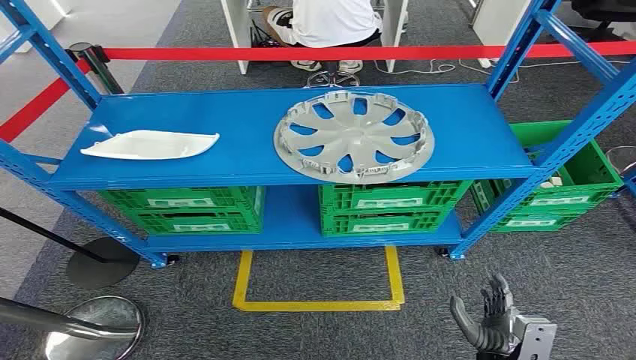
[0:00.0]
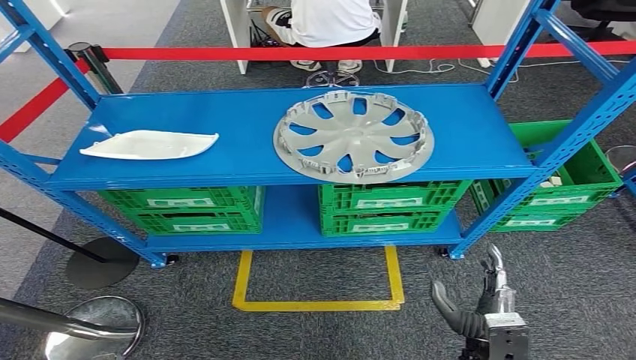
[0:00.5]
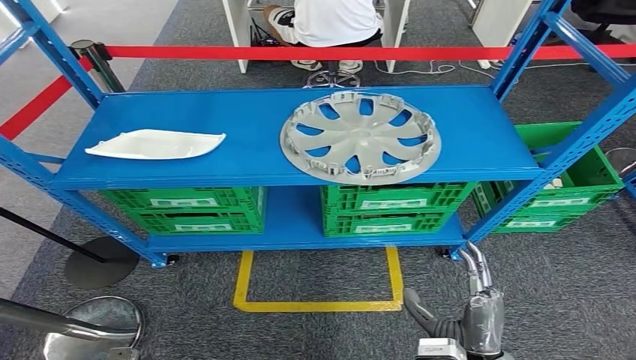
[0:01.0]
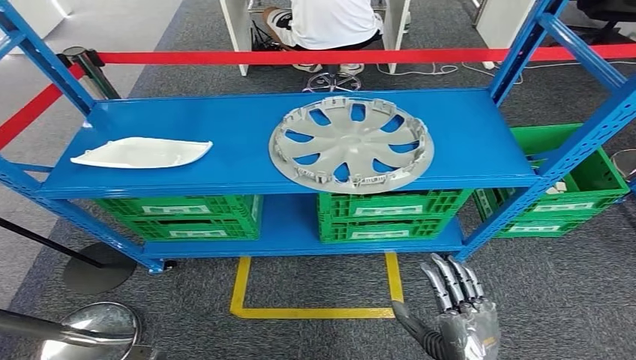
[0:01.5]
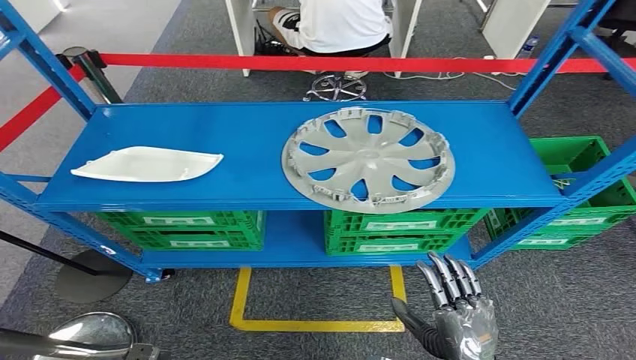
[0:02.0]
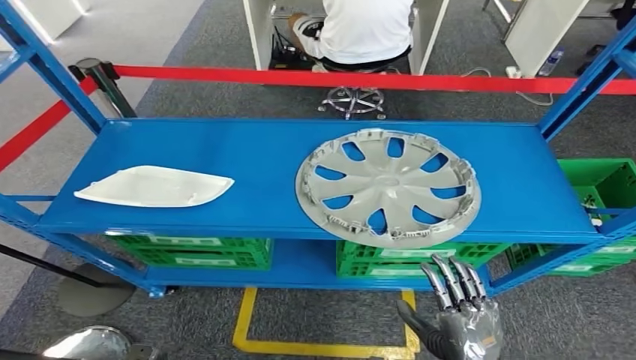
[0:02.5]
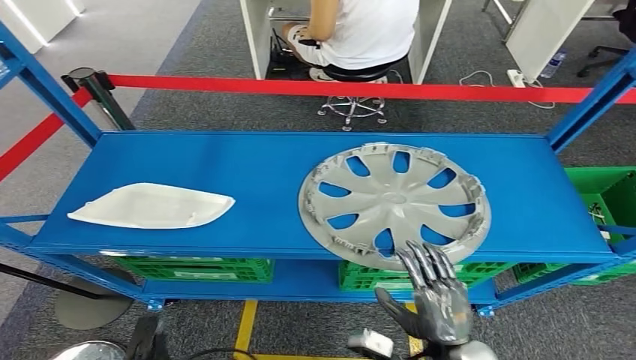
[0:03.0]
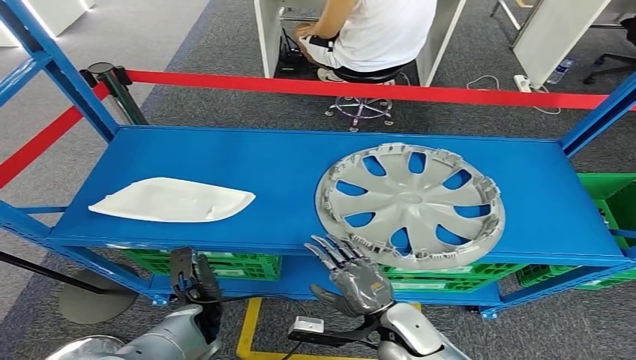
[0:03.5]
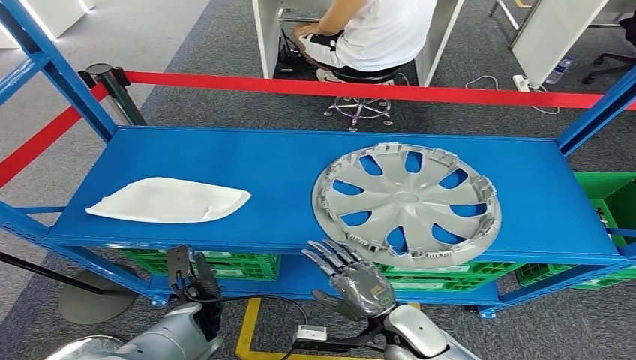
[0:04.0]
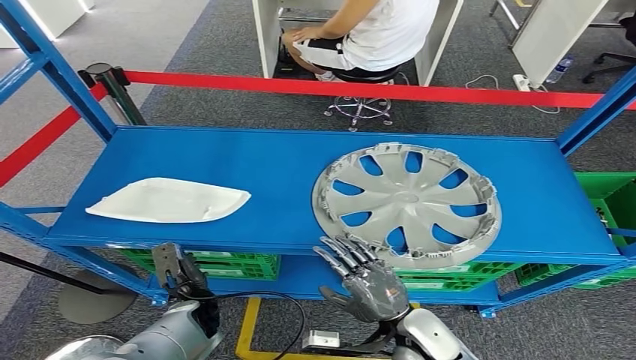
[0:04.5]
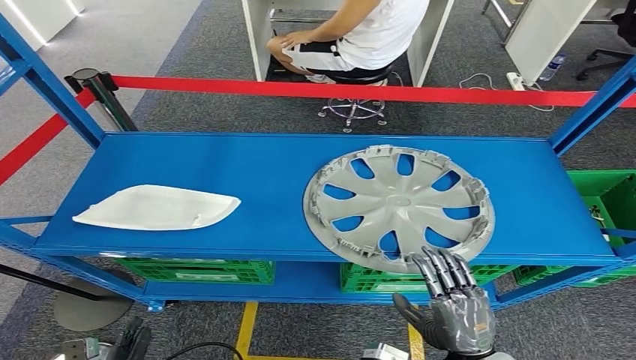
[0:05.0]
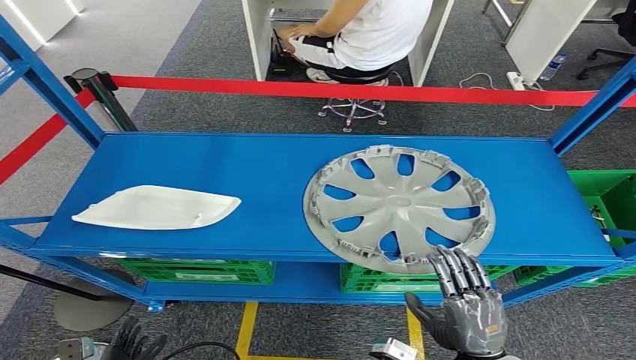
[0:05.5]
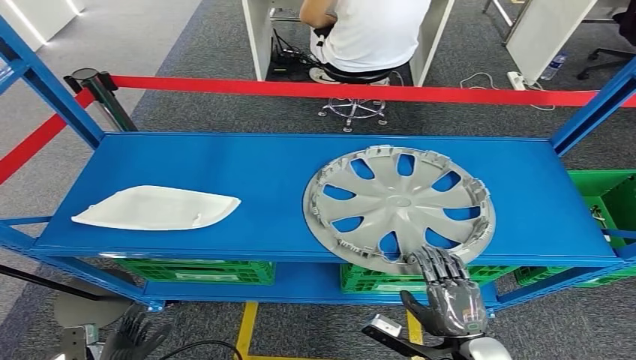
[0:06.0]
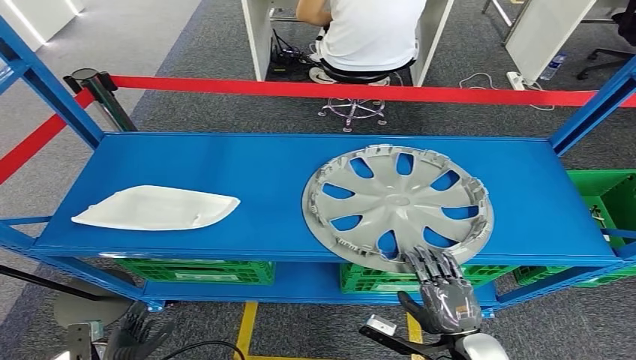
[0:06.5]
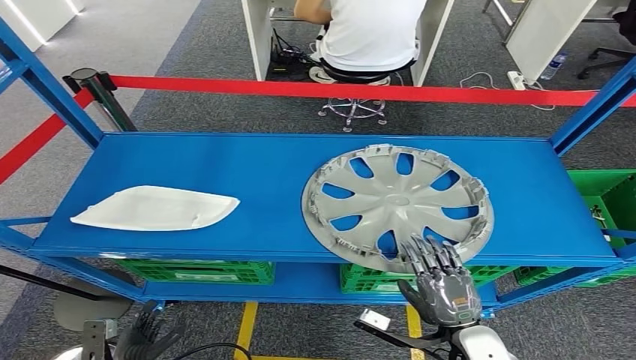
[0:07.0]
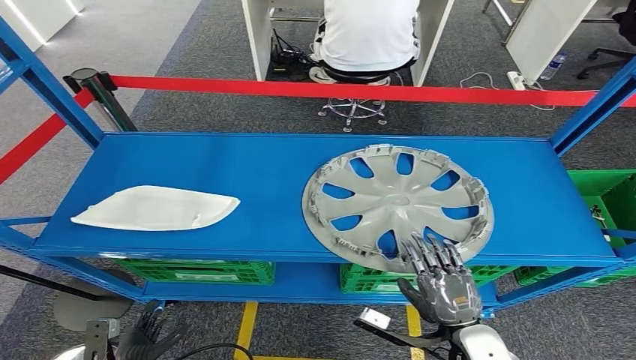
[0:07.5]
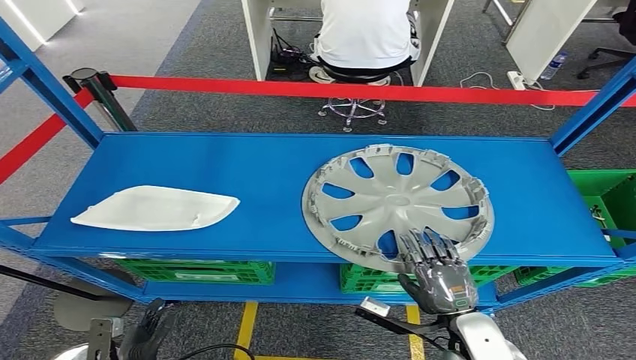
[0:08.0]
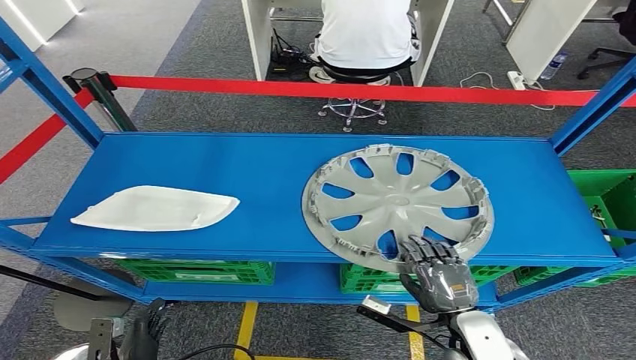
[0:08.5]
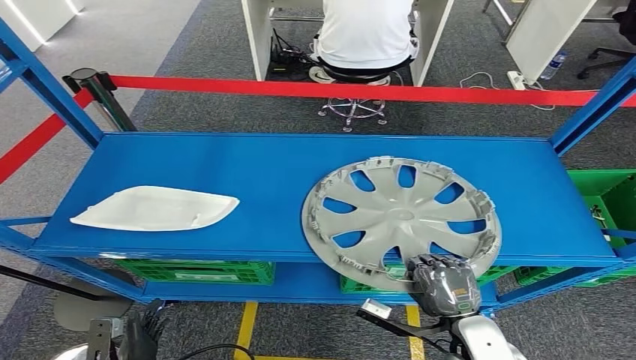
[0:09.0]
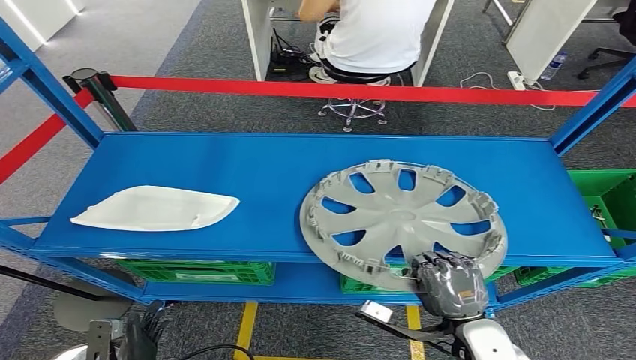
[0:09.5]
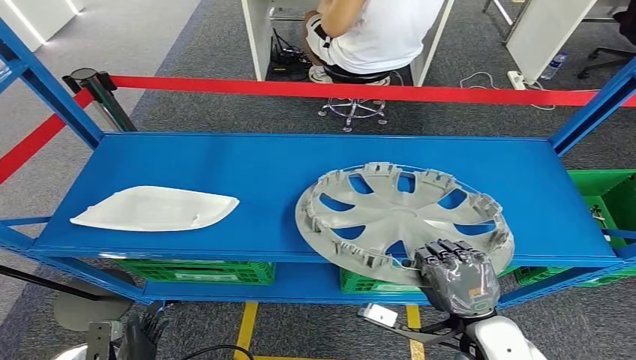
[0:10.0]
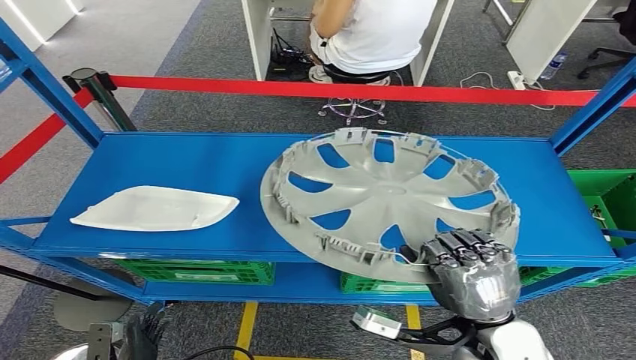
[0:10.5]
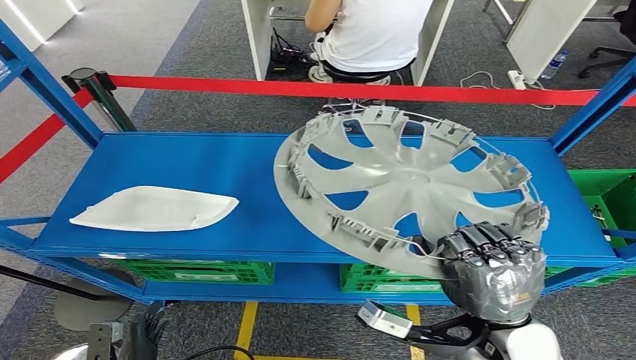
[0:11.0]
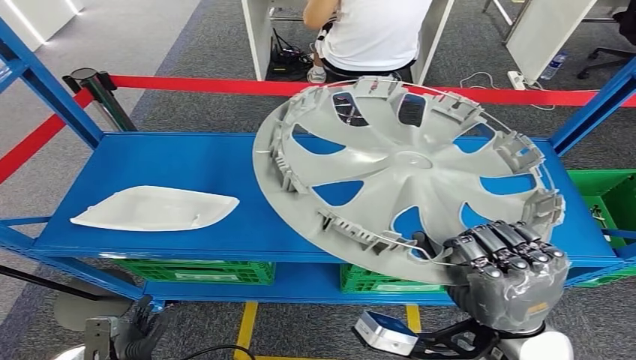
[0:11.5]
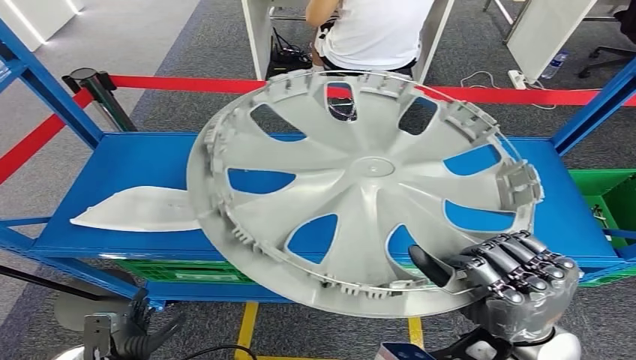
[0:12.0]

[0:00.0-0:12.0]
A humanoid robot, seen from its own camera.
Step, 0:00.0 to 0:10.0: Pick up the small component from the shelf.
0:06.0 to 0:08.0: There are only small adjustments of the hands.
0:08.0 to 0:10.0: The right hand moves upward, about 5 cm.

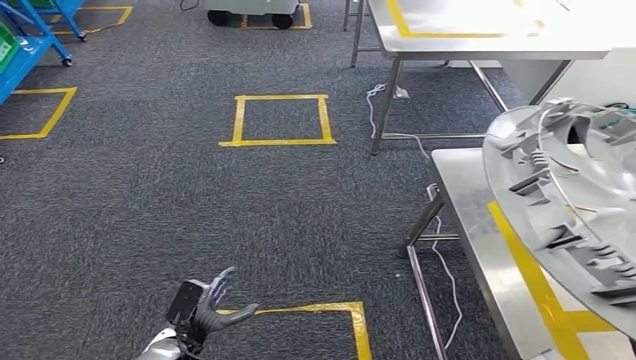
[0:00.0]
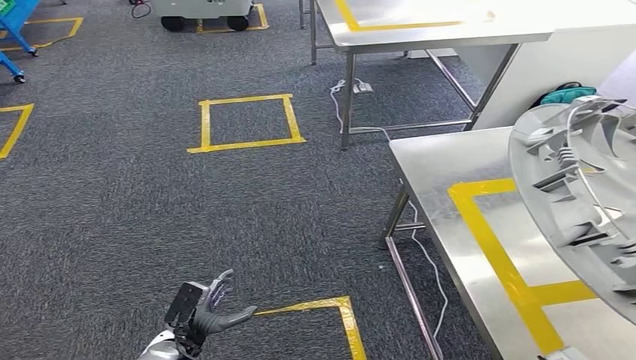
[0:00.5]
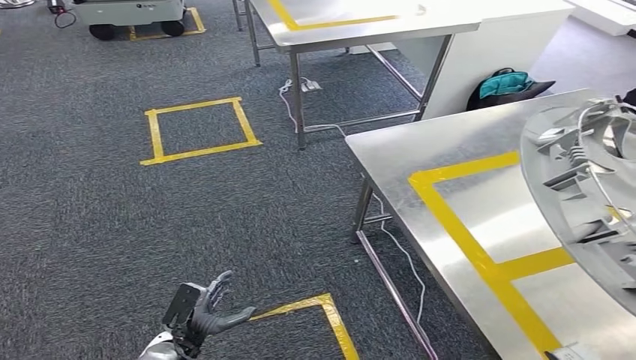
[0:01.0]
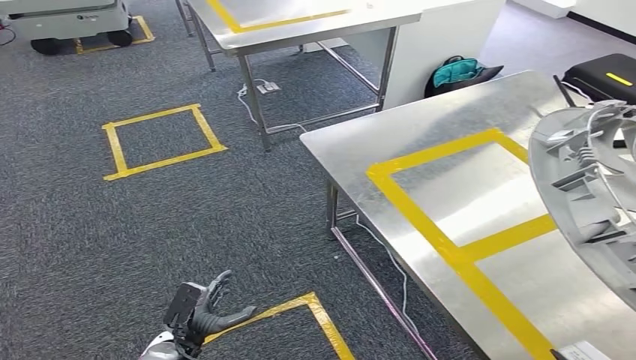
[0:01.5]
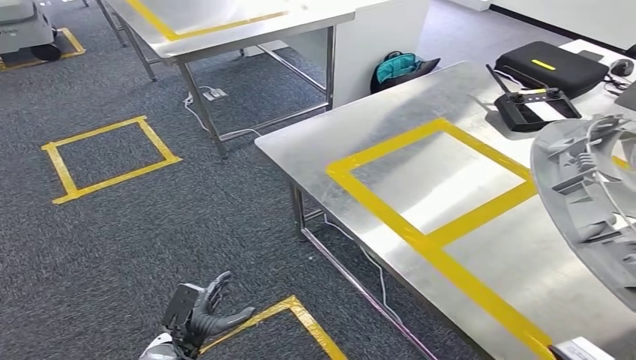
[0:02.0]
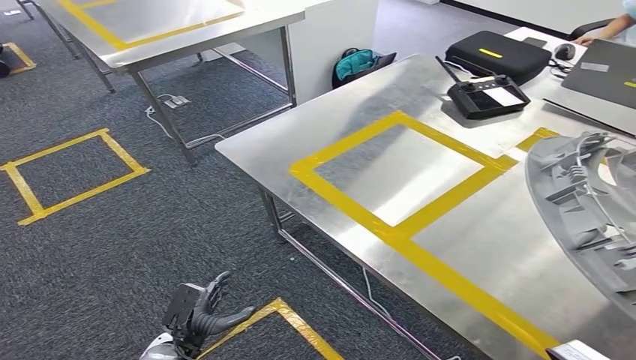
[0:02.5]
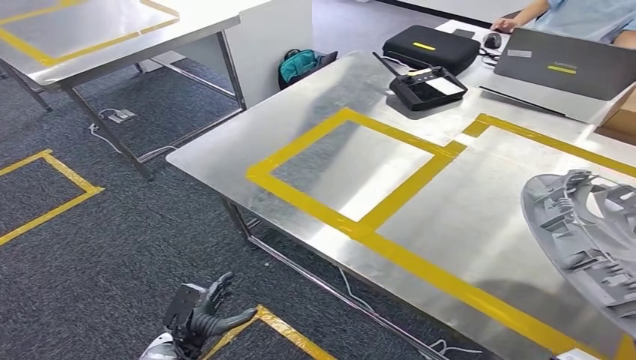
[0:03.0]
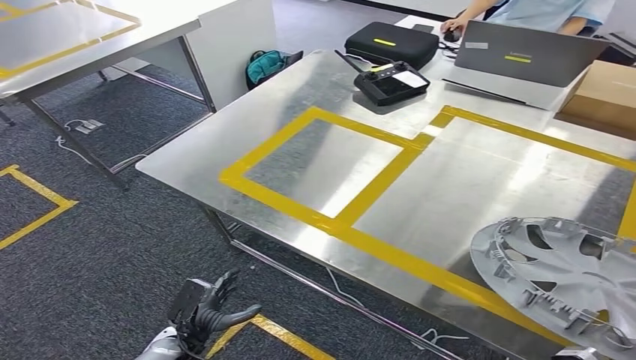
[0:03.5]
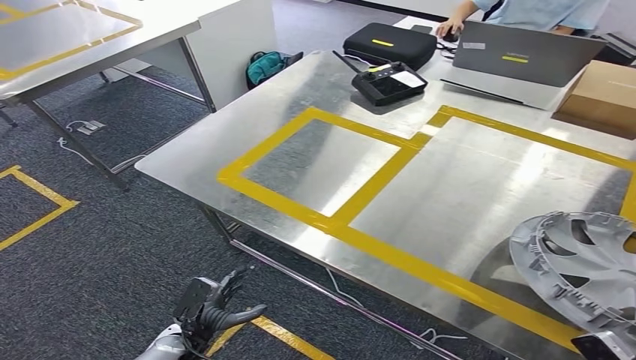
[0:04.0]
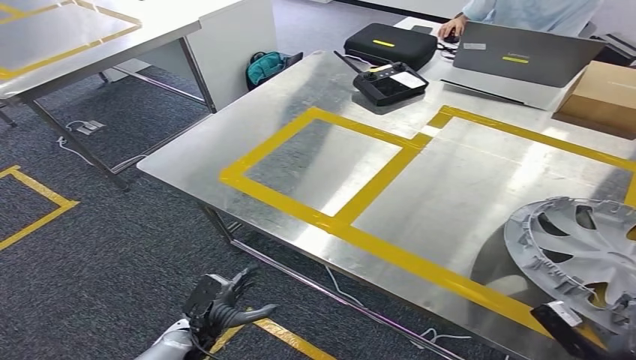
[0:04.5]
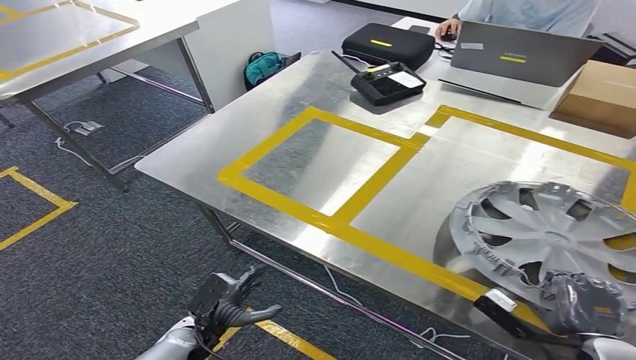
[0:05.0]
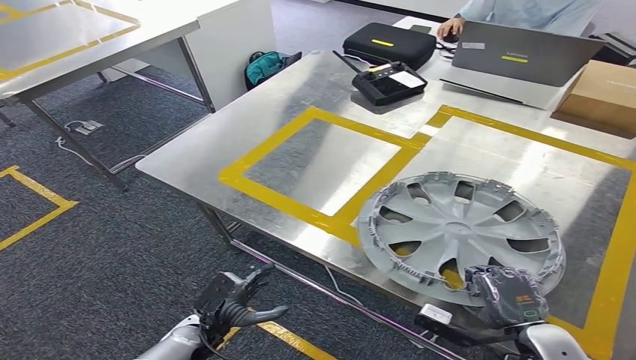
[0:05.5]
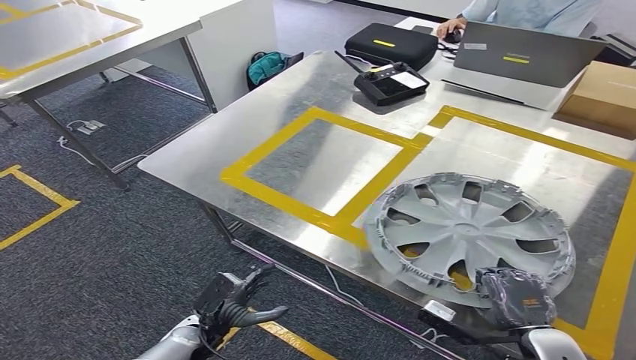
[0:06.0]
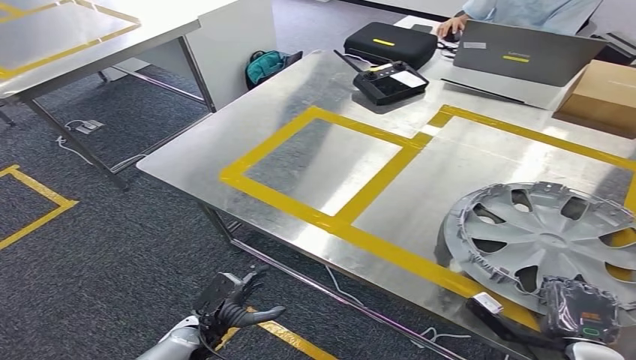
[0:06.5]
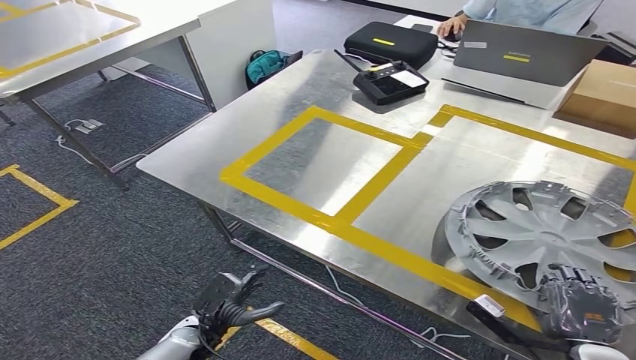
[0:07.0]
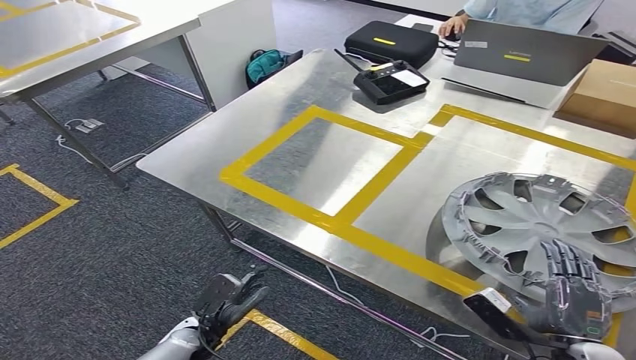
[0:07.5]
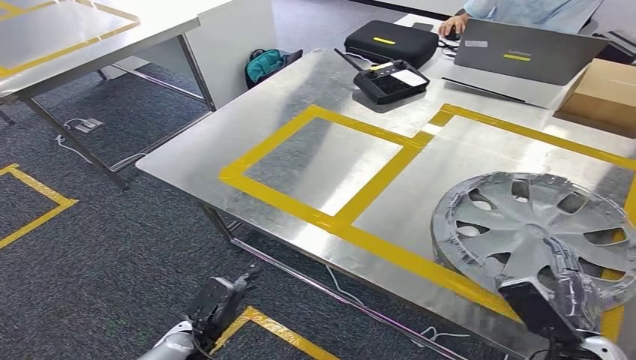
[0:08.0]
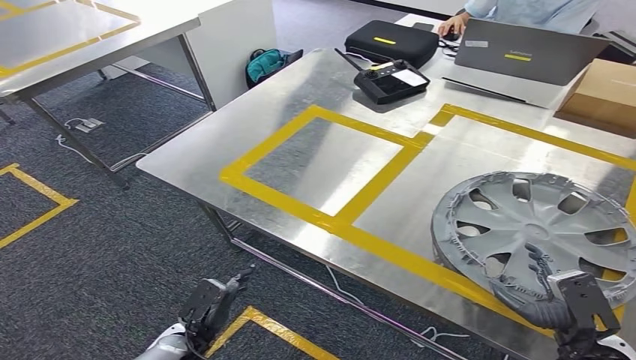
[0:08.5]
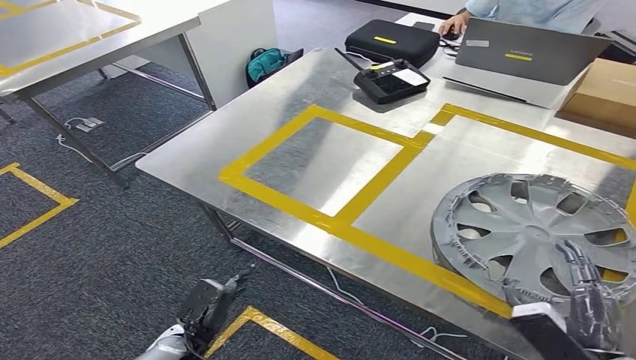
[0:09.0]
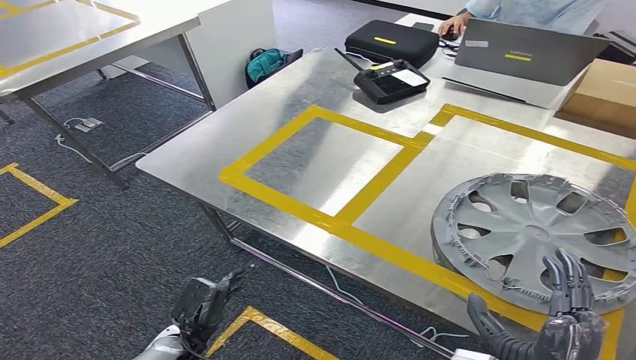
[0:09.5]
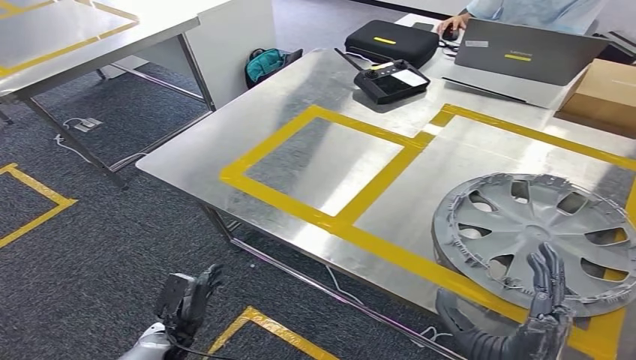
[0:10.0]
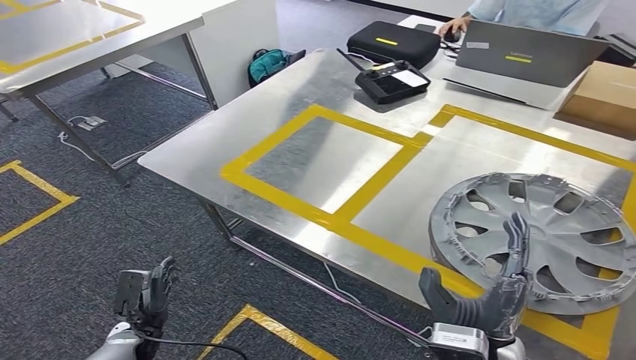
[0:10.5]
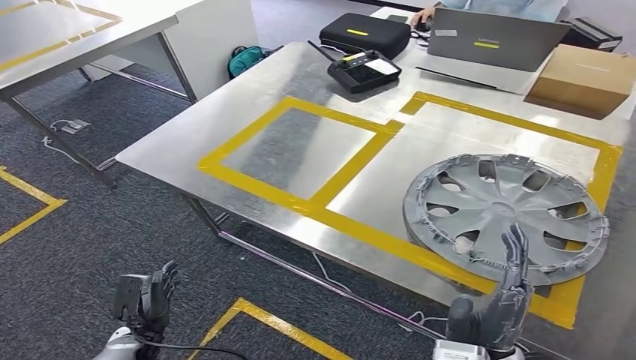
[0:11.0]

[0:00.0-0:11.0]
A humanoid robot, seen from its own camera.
Step, 0:00.0 to 0:03.0: Move the small component to the workbench.
Step, 0:03.5 to 0:08.5: Insert the small component into the corresponding slot on the workbench.
0:03.5 to 0:05.5: The right hand heads forward, to the left and downward, covering about 15 cm.
